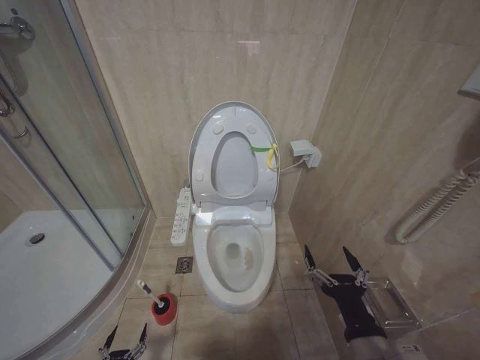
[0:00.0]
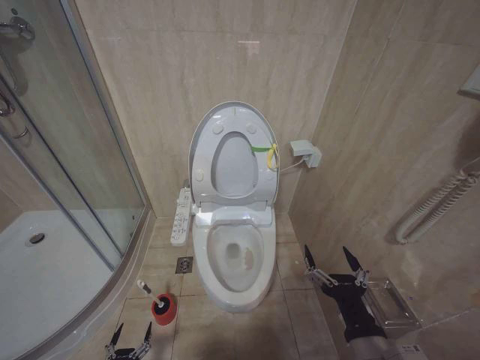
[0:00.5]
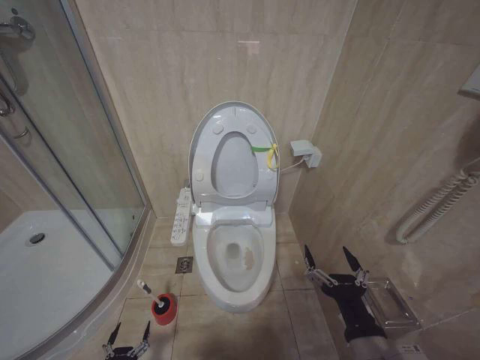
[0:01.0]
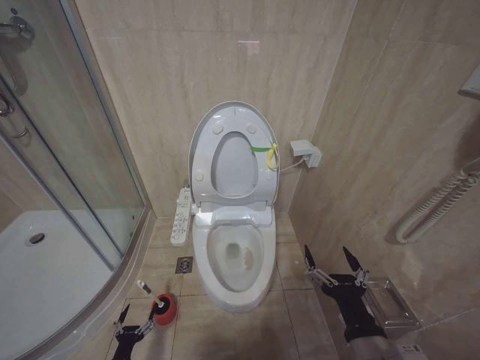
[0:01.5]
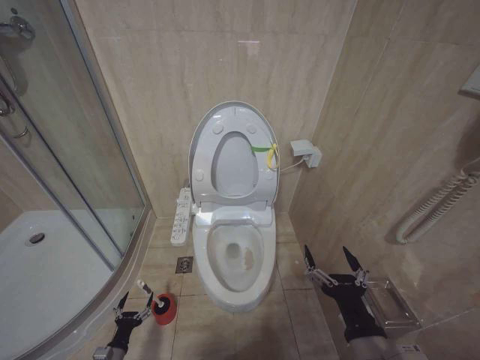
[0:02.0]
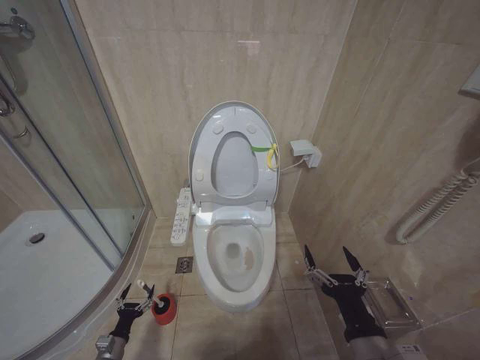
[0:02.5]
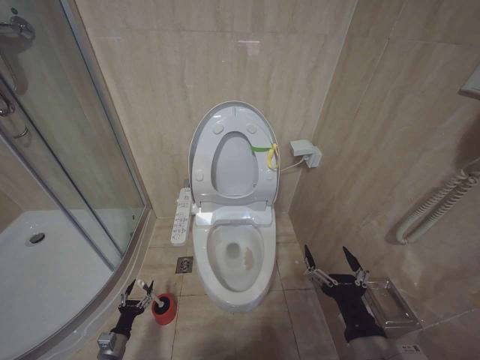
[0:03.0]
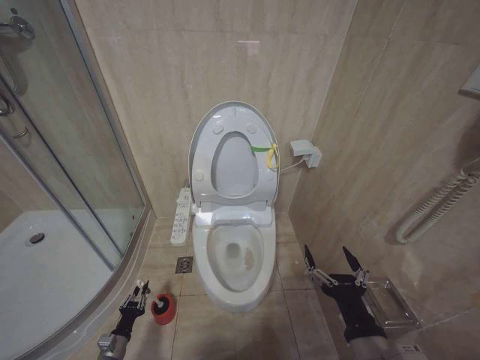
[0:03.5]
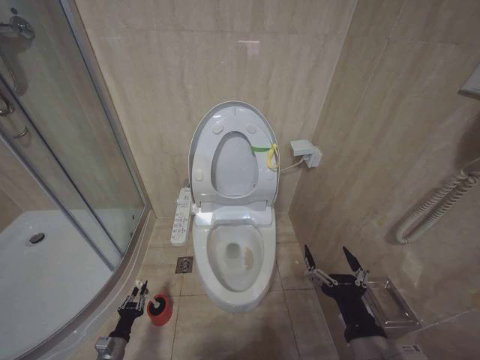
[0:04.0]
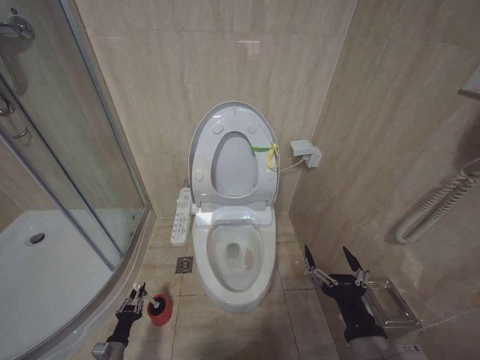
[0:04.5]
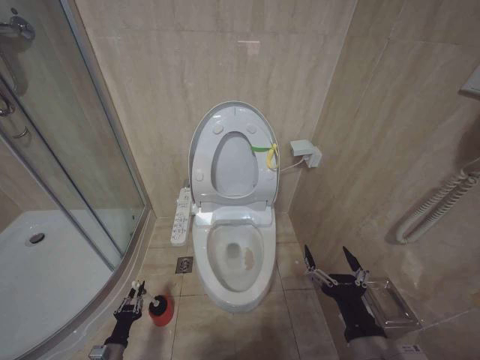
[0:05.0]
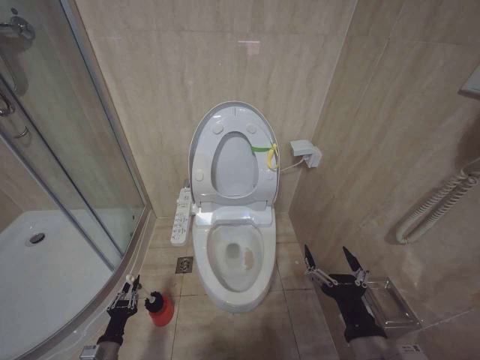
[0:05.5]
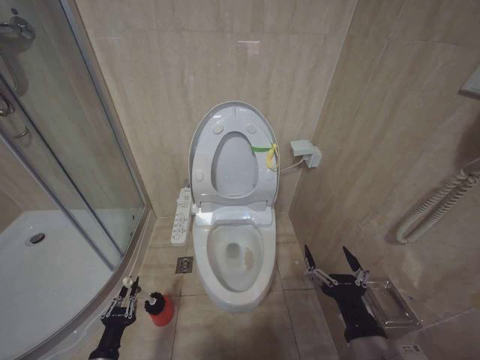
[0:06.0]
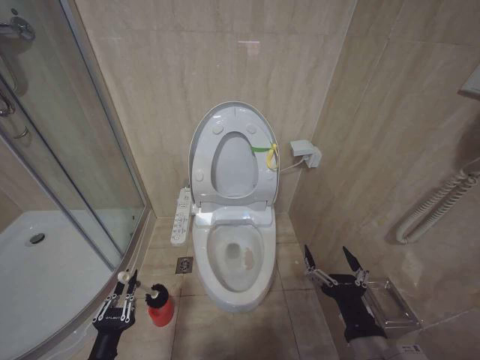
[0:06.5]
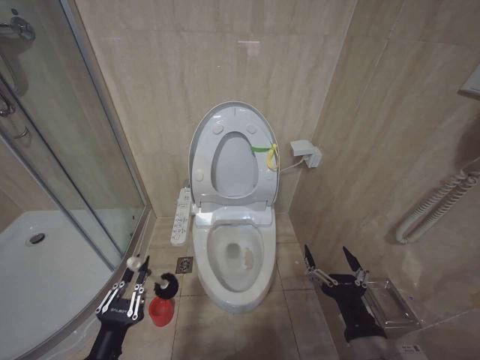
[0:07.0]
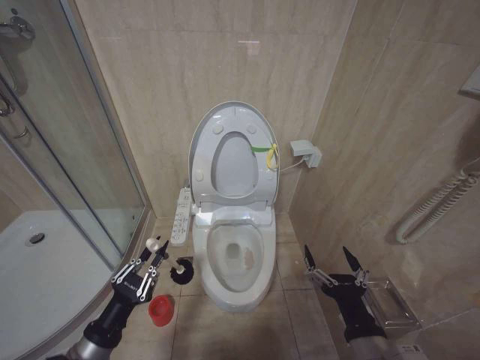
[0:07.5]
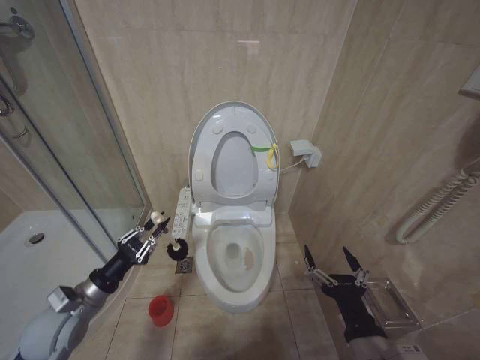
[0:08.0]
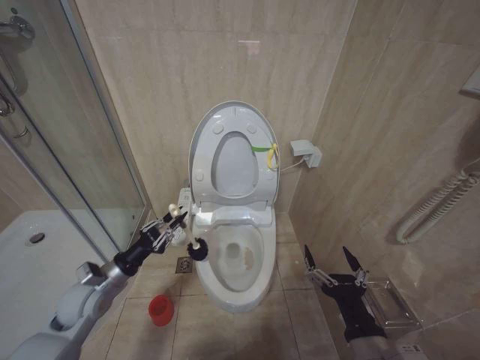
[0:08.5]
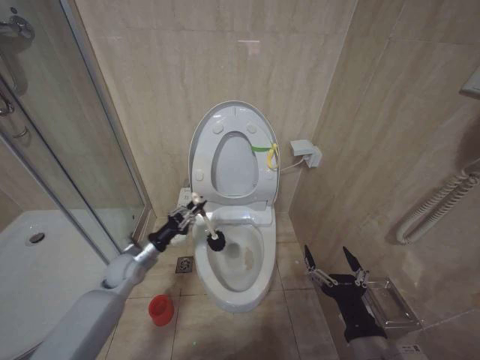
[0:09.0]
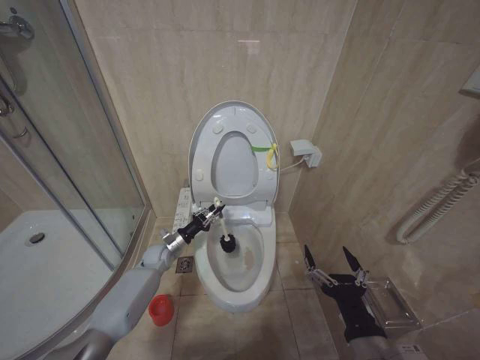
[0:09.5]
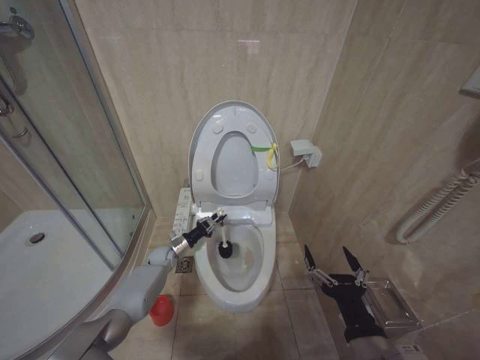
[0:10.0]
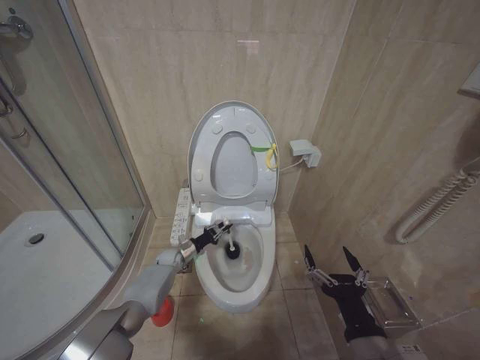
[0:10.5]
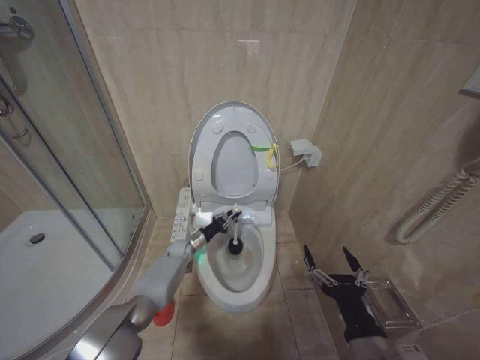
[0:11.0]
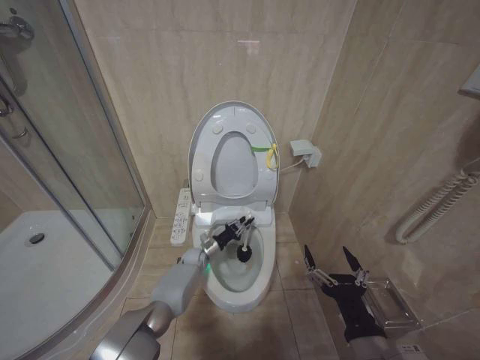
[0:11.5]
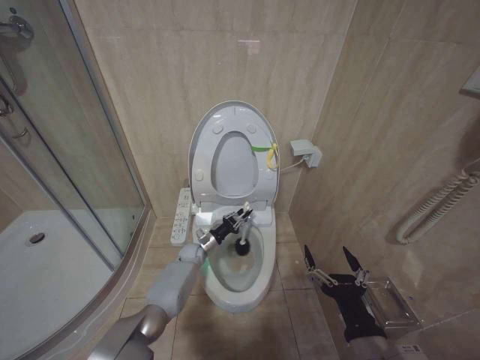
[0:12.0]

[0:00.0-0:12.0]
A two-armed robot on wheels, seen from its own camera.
Task of the whole recording: Open the toilet lid, clean the toilet bowl with a toilet brush, close the toilet lid, and flush.
0.0 to 2.0 s: The left gripper travels forward by roughly 10 cm.
2.0 to 4.0 s: The left gripper closes.
4.0 to 6.0 s: The left gripper moves upward, backward and to the right, roughly 15 cm.
6.0 to 8.0 s: The left gripper travels upward and forward by some 20 cm.
8.0 to 10.0 s: The left gripper moves forward and downward, approximately 30 cm.
10.0 to 12.0 s: The left gripper heads to the right, covering approximately 10 cm.

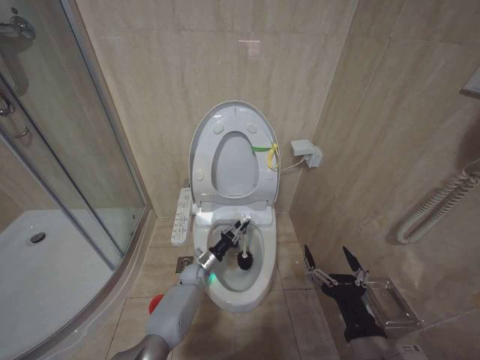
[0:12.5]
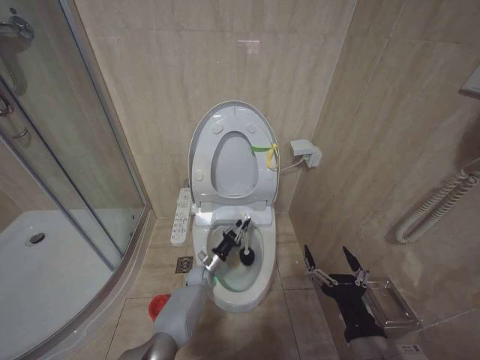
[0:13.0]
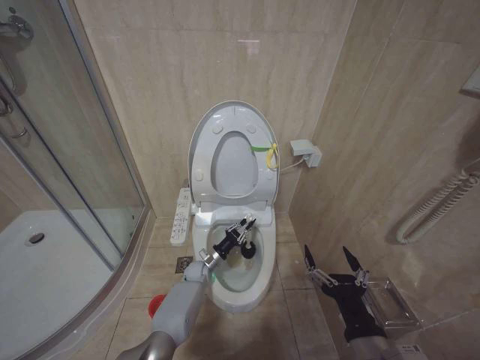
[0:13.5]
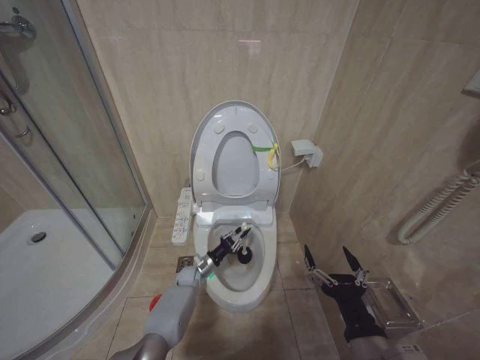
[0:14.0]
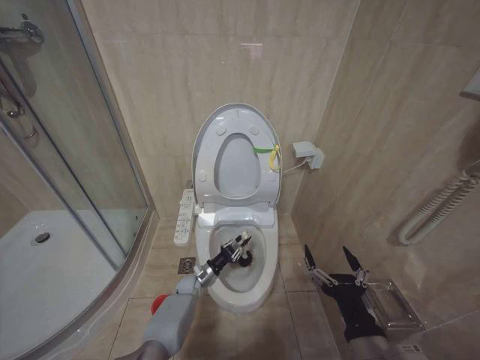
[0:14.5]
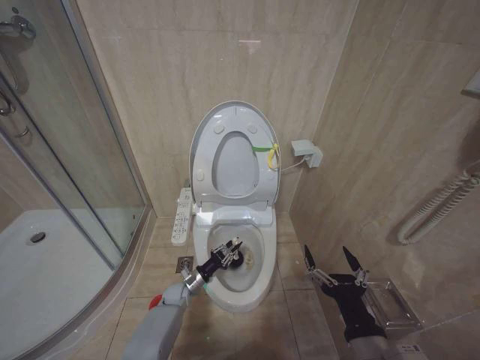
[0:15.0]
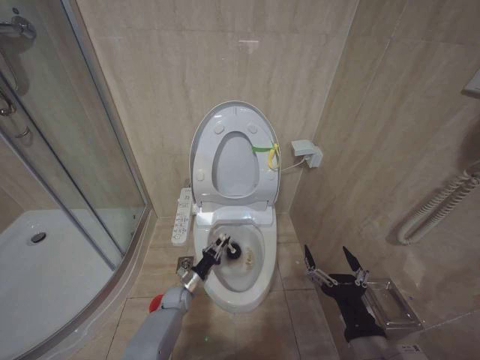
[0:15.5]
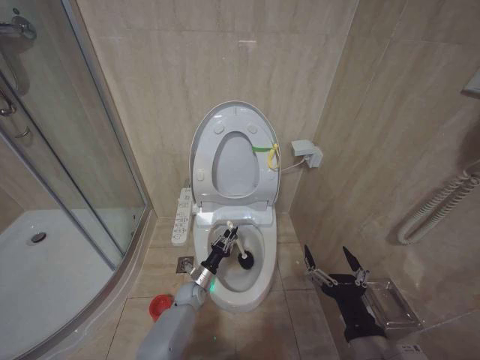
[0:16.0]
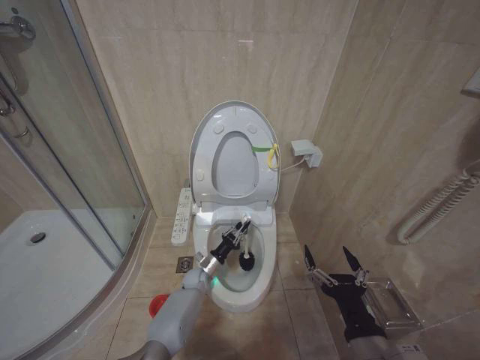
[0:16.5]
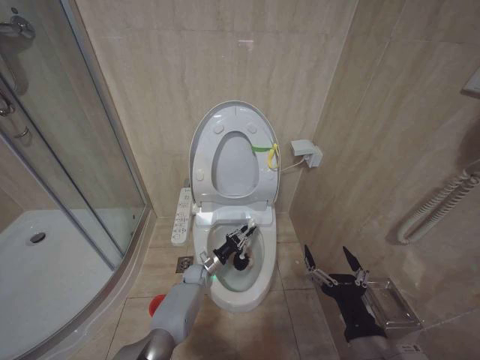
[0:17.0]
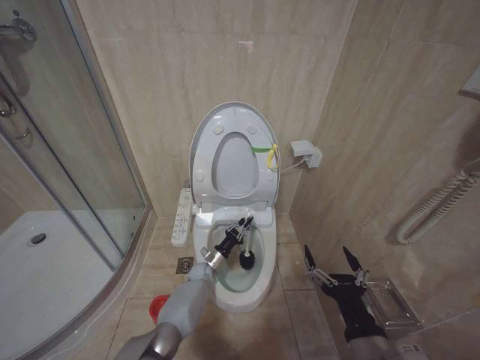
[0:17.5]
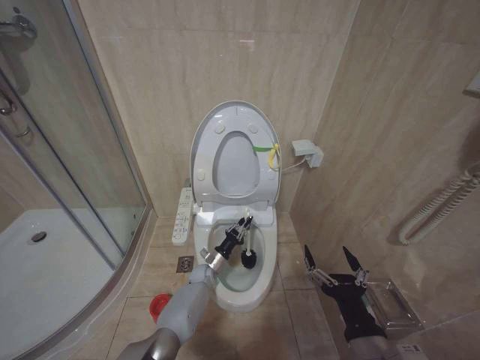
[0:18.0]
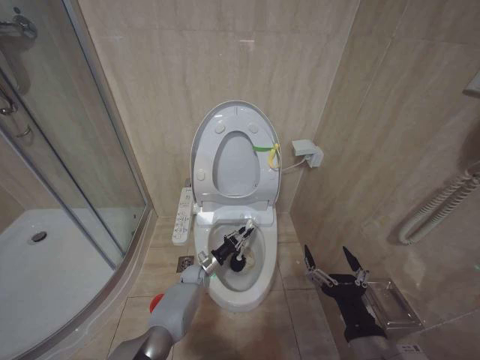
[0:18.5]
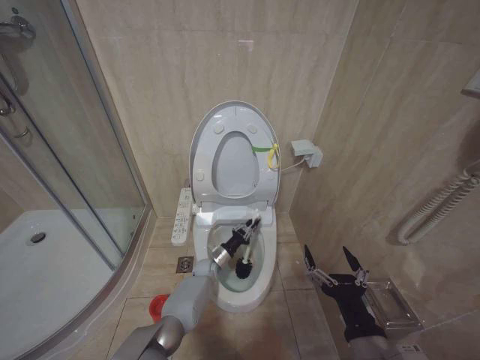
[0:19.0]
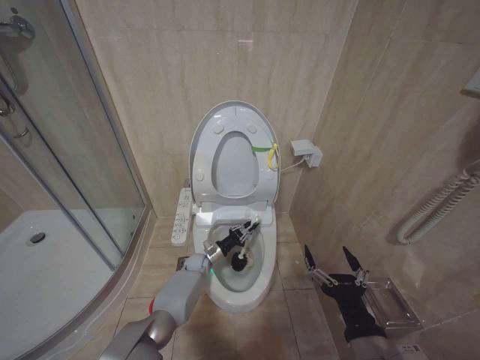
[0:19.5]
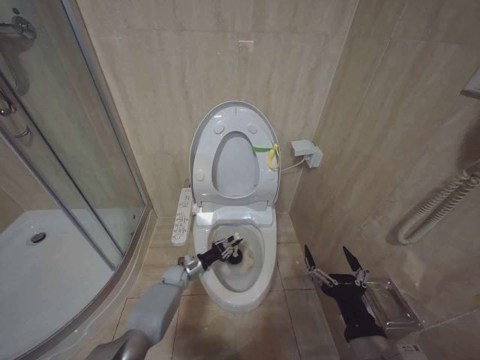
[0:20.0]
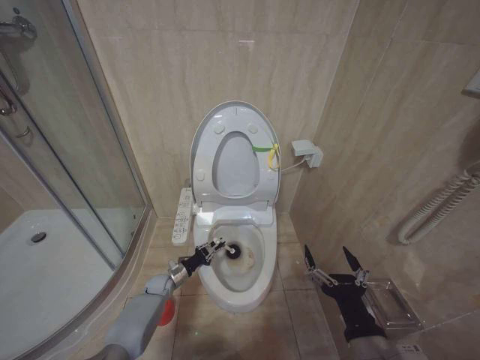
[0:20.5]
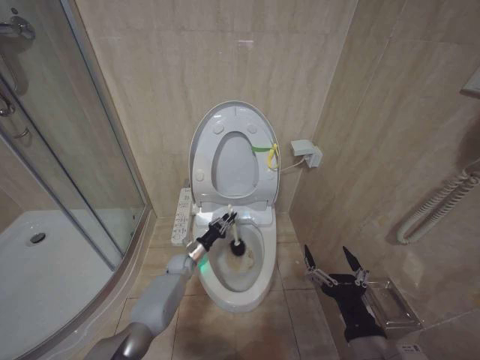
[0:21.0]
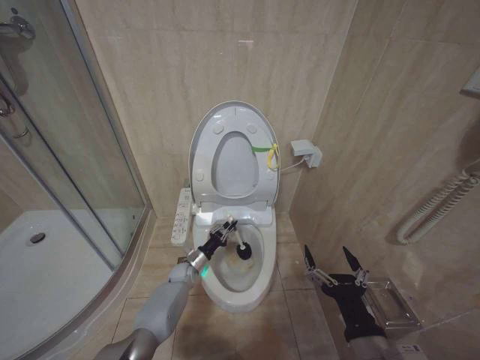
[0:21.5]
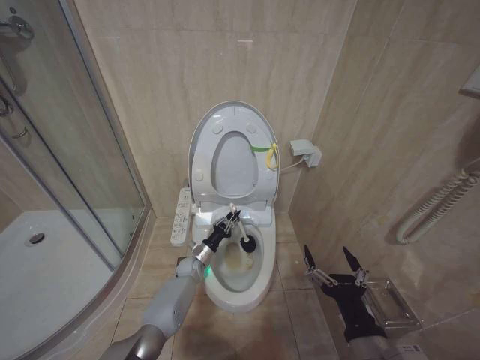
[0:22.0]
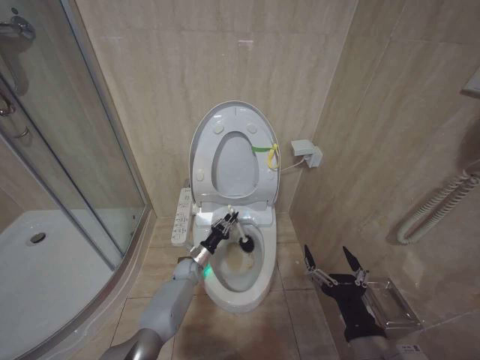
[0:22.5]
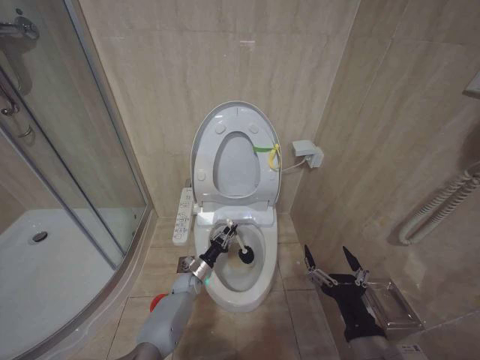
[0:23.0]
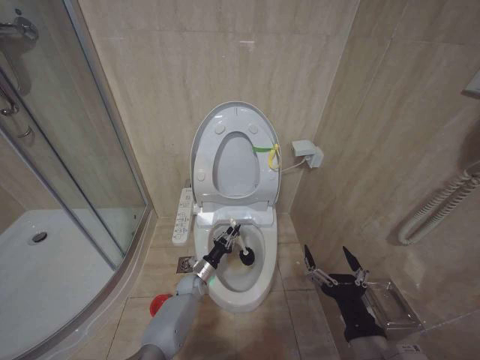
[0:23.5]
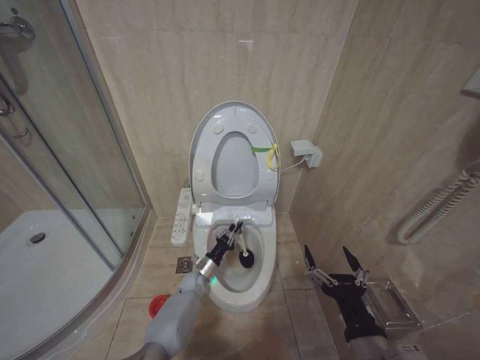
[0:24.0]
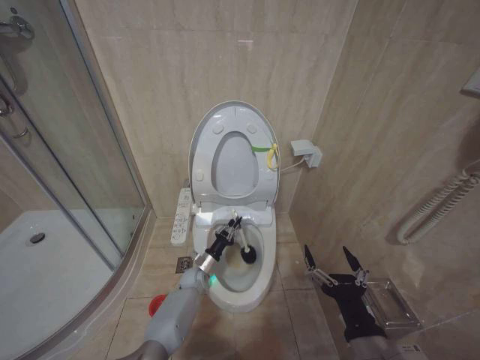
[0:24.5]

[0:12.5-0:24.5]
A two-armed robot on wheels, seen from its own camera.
Task of the whole recording: Open the toilet lid, clean the toilet bowl with a toilet brush, close the toilet lid, and flush.
12.5 to 14.5 s: The grippers make only small movements.
16.5 to 18.5 s: The grippers stay close to where they were, moving slightly.
18.5 to 20.5 s: The left gripper travels to the left by some 10 cm.
20.5 to 22.5 s: The left gripper heads to the right, covering approximately 10 cm.
22.5 to 24.5 s: The grippers stay close to where they were, moving slightly.

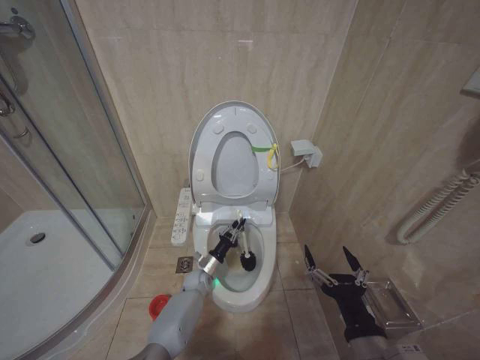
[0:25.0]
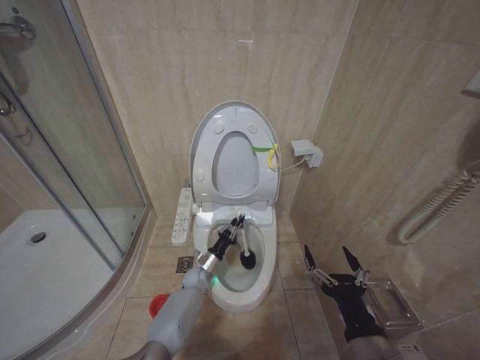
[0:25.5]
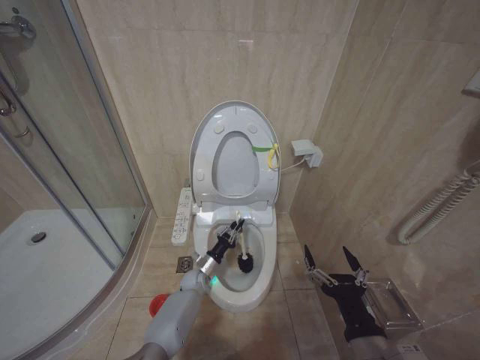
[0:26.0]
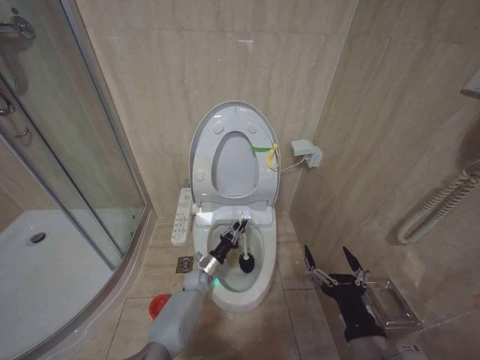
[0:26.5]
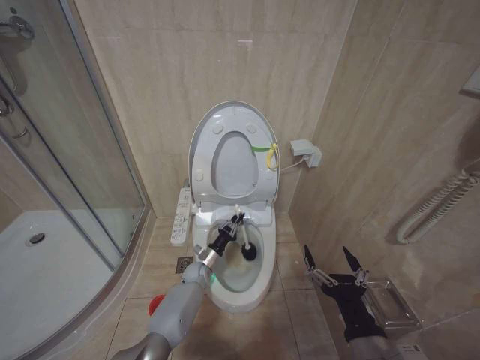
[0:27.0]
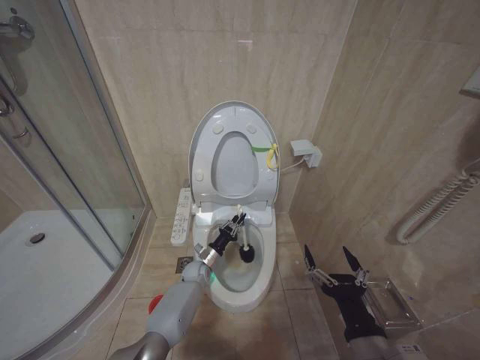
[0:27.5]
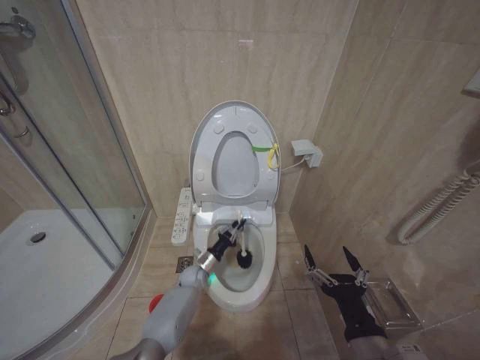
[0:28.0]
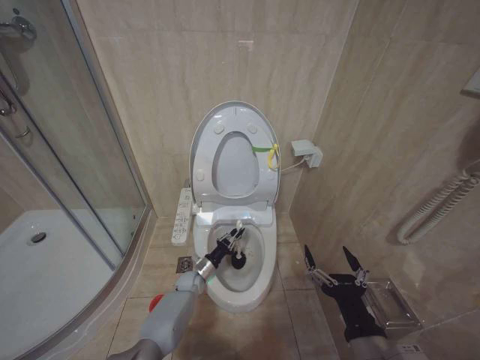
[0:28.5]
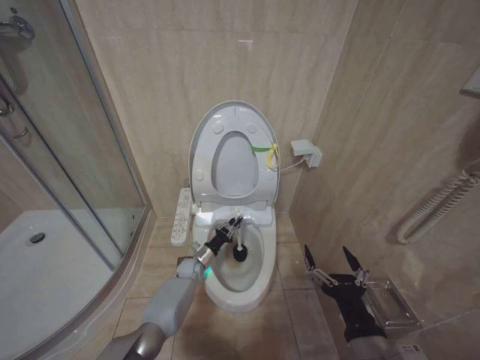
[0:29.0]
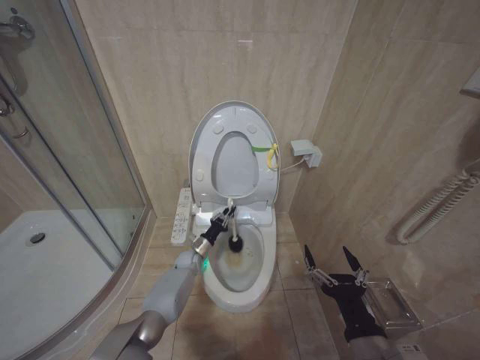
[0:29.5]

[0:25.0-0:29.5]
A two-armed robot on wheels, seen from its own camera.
Task of the whole recording: Open the toilet lid, clean the toilet bowl with a toilet brush, close the toilet lid, and flush.
25.0 to 27.0 s: The grippers move only a little.
27.0 to 29.5 s: The left gripper moves approximately 5 cm.
